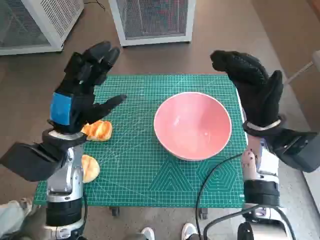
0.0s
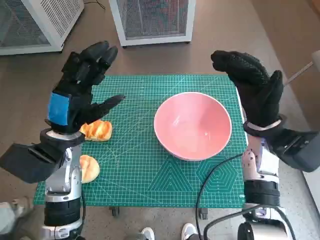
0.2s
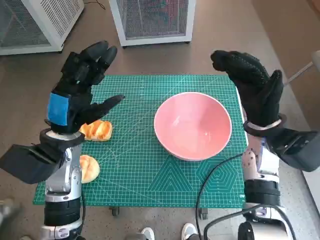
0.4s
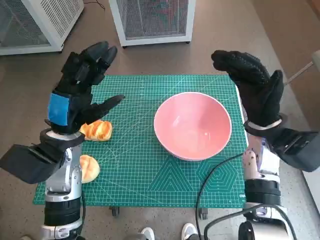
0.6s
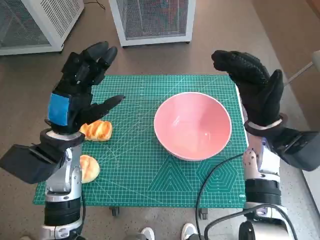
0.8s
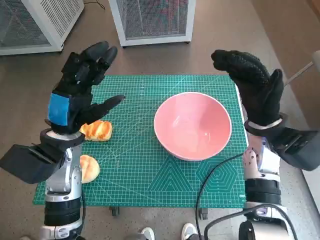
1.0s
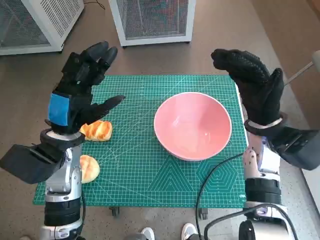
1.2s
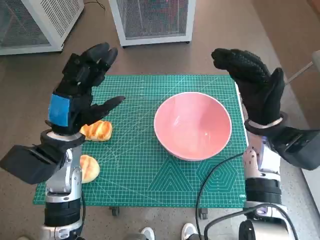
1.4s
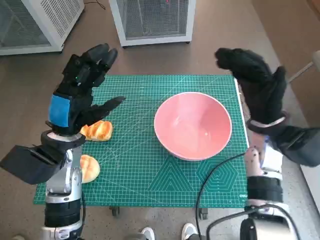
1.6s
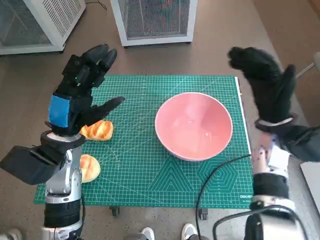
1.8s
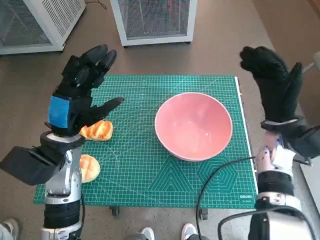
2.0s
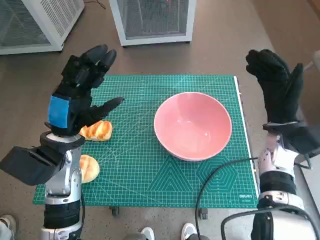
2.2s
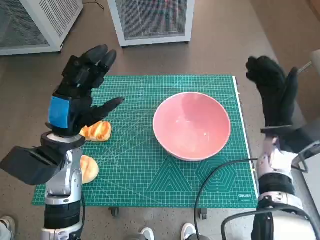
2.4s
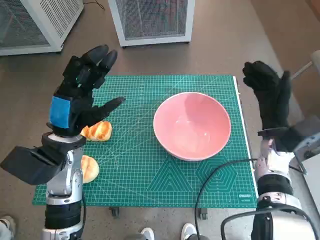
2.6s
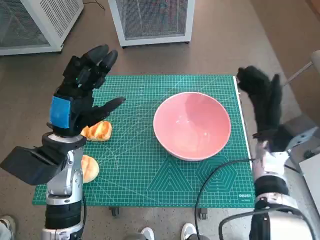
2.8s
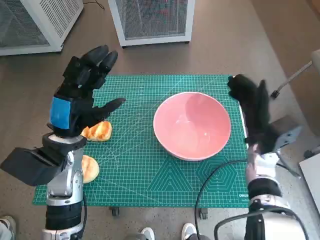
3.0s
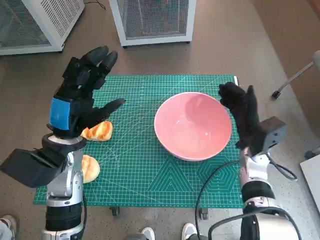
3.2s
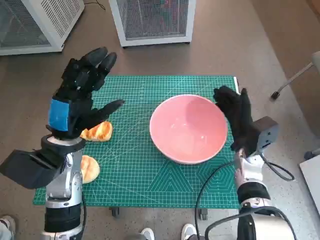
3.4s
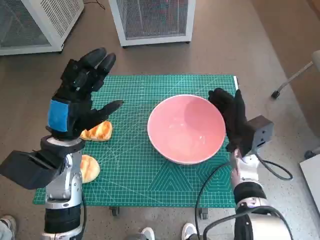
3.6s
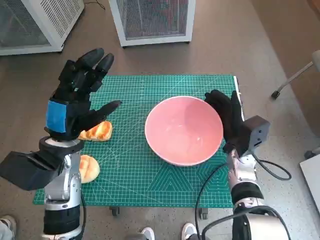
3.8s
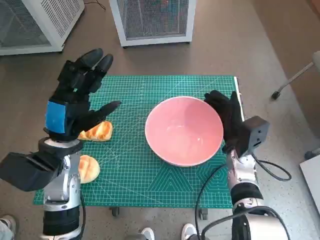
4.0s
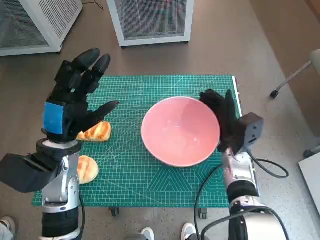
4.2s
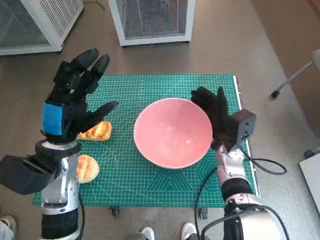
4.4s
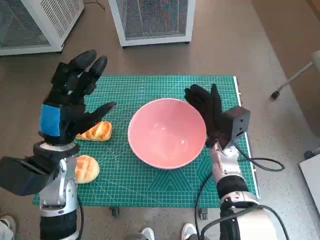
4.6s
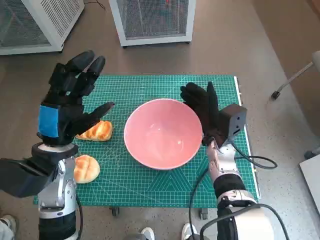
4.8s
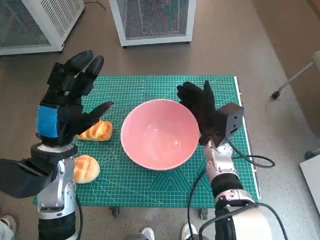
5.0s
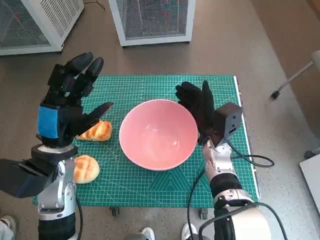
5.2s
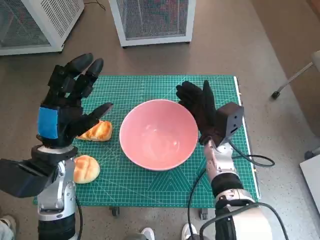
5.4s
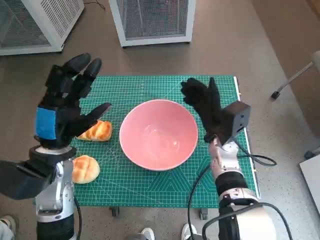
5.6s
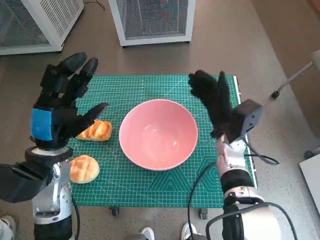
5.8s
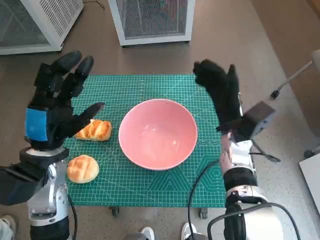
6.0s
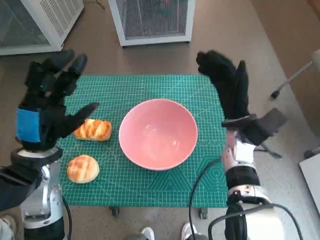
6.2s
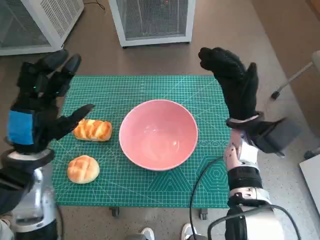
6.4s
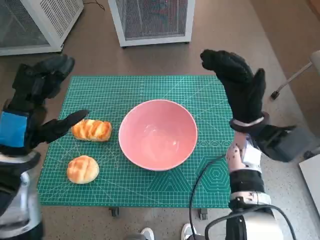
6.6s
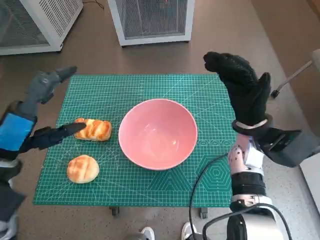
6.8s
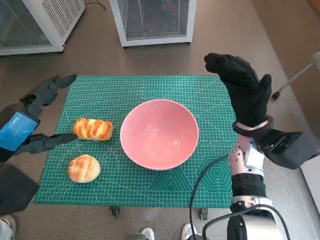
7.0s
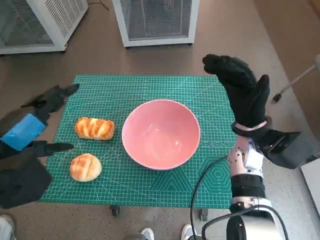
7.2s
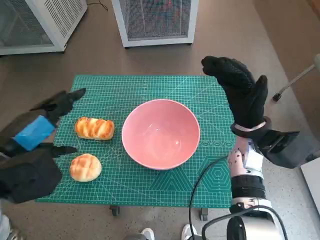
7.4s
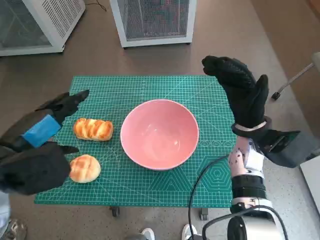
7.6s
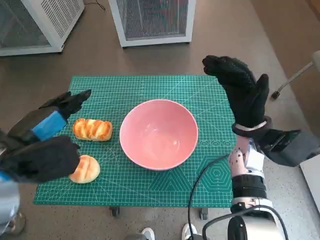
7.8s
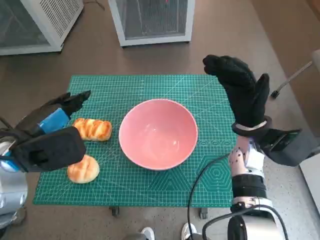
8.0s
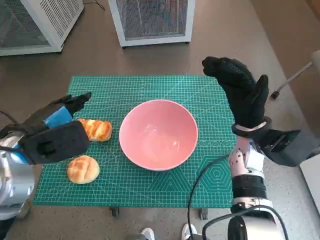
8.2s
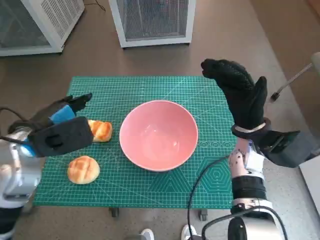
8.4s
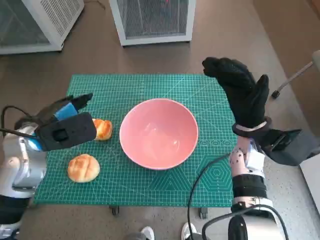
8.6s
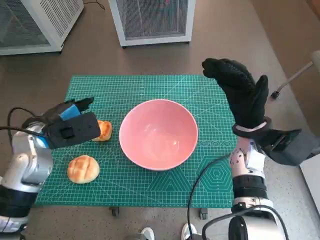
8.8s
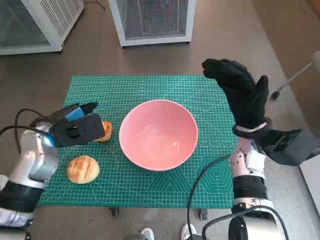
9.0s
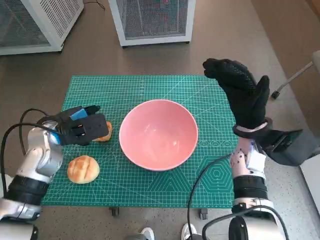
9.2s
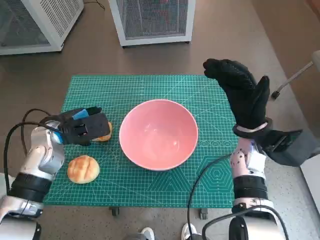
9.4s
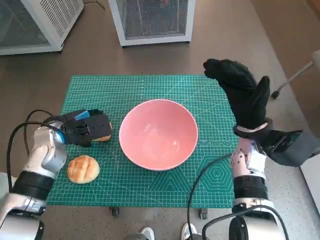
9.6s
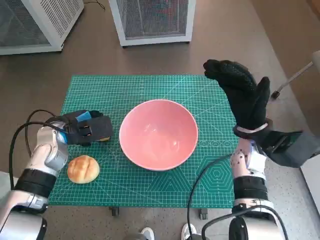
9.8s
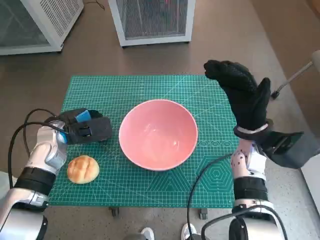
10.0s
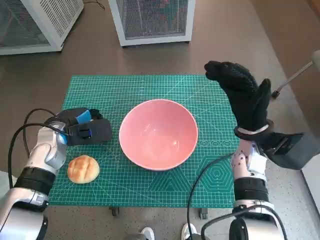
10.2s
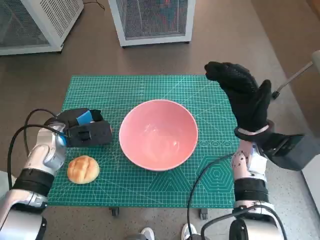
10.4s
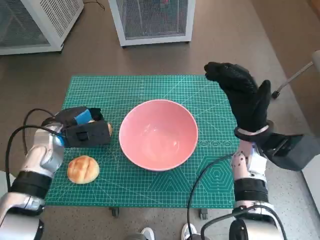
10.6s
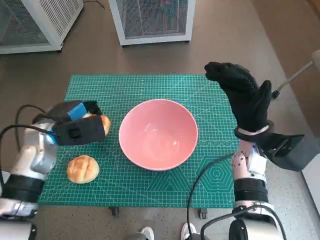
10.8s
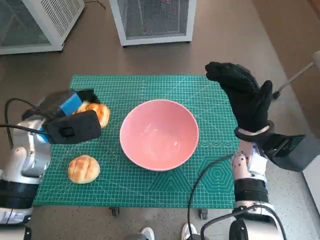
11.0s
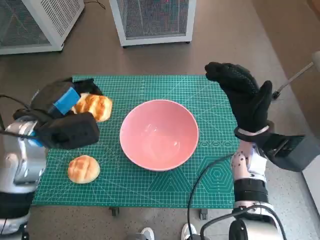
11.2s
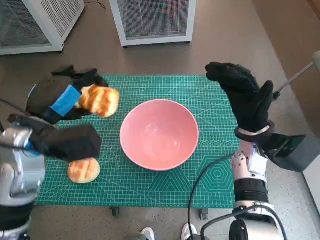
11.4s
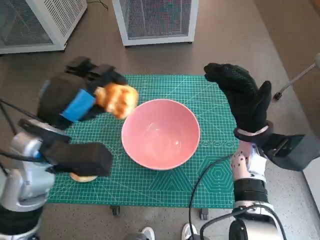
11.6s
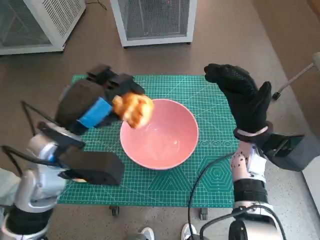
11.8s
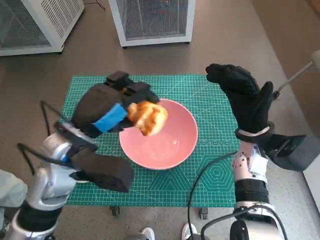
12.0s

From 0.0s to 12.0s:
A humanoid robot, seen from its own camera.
Task of the whole recording: Push the bowl into the center of the table and put the bread into the bowl.
Step, from 0.0s to 5.6s: Move the pink bowl to the center of table with right hand.
Step, from 5.8s to 9.8s: Grasp the long bread with left hand.
From 1.6s to 3.0s: The right hand moves downward, about 5 cm.
From 3.0s to 4.4s: The right hand shifts about 5 cm to the left.
From 6.0s to 7.6s: The left hand heads upward, covering some 5 cm.
From 7.6s to 9.0s: The left hand shifts about 10 cm forward and downward.
From 9.0s to 10.4s: The left hand ends up approximately 5 cm from where it was.
From 10.4s to 12.0s: The left hand goes approximately 15 cm upward, to the right and backward.

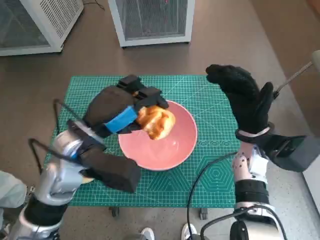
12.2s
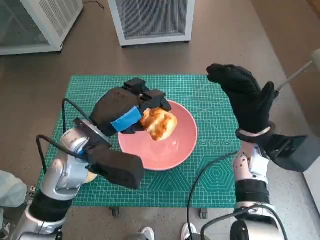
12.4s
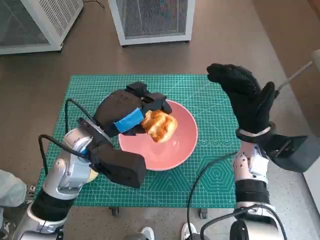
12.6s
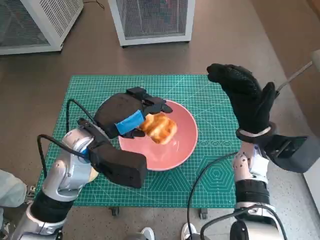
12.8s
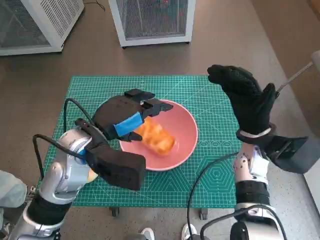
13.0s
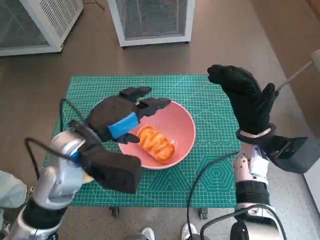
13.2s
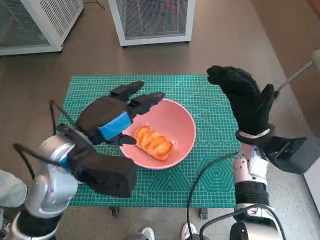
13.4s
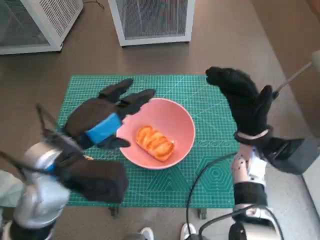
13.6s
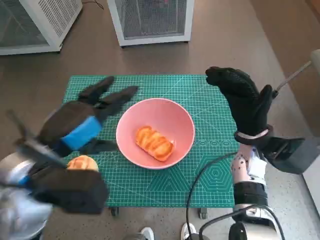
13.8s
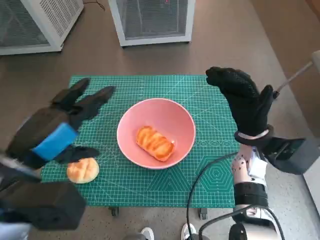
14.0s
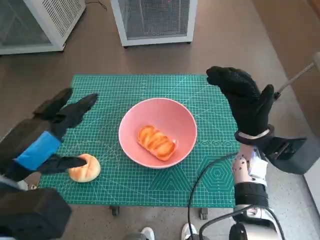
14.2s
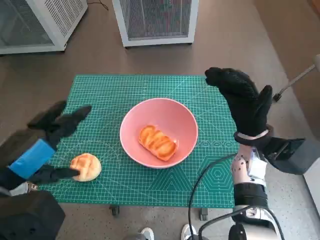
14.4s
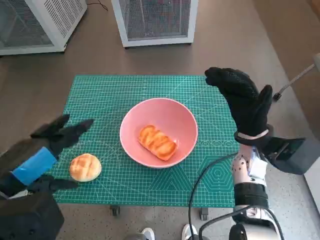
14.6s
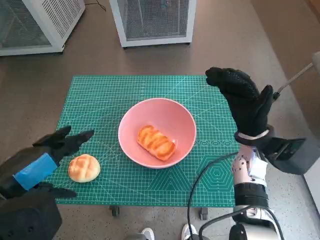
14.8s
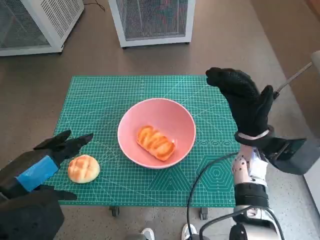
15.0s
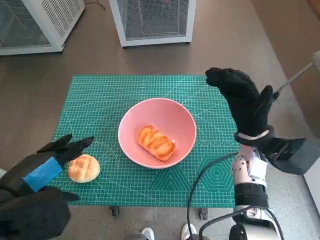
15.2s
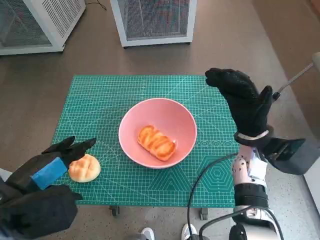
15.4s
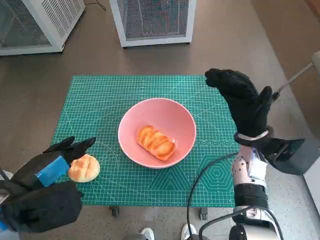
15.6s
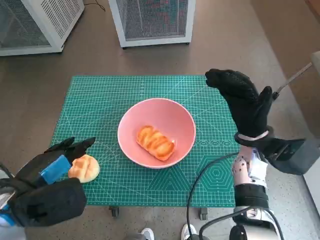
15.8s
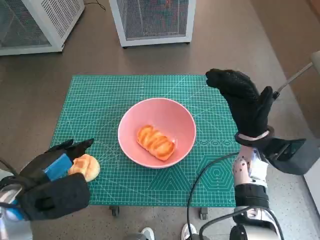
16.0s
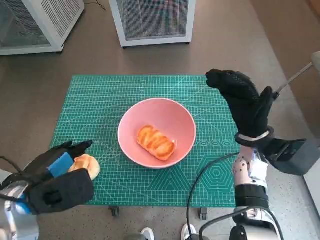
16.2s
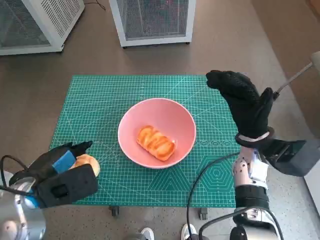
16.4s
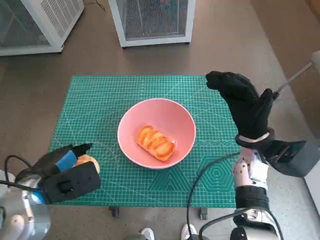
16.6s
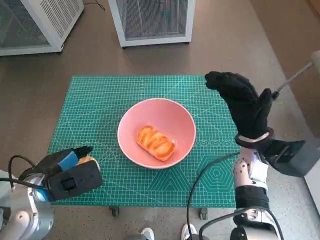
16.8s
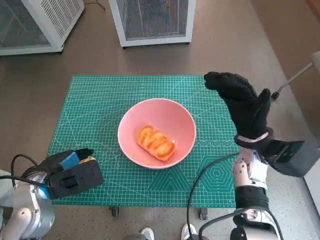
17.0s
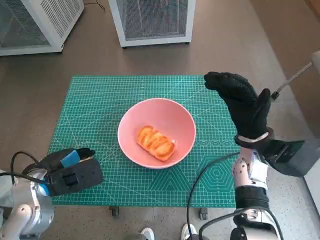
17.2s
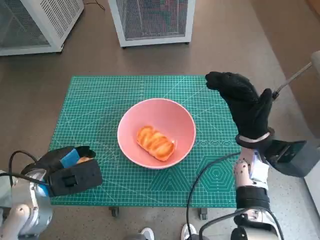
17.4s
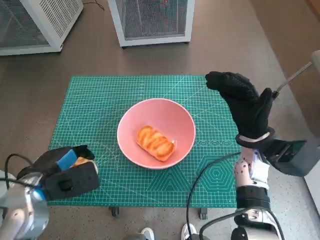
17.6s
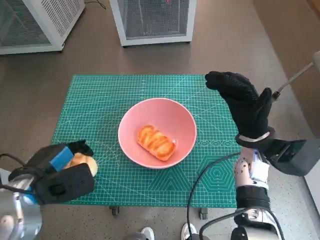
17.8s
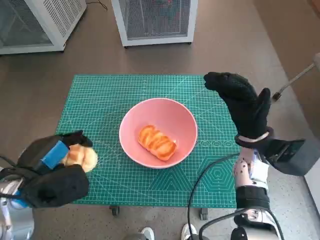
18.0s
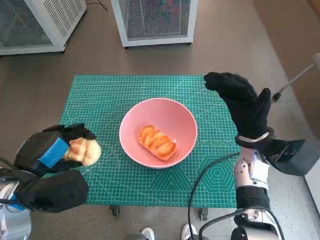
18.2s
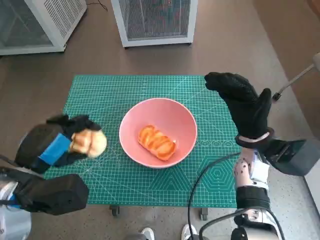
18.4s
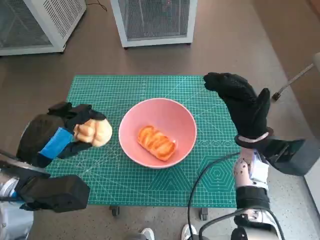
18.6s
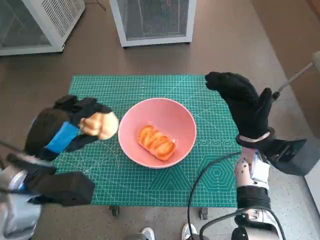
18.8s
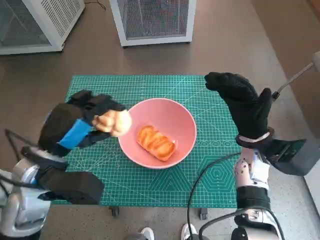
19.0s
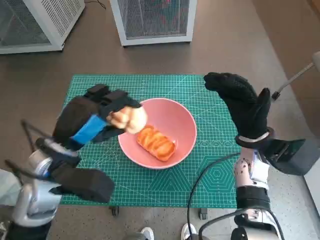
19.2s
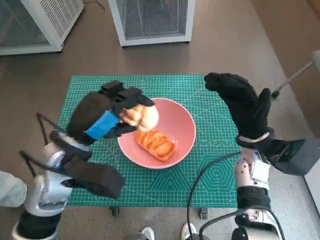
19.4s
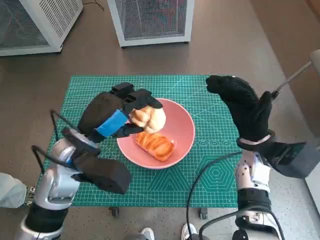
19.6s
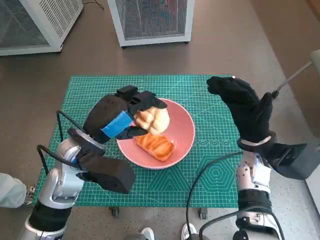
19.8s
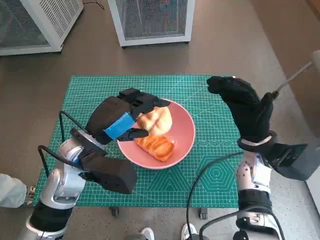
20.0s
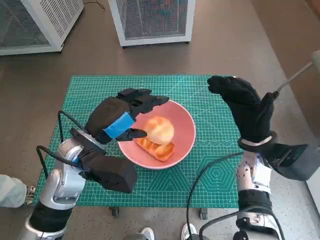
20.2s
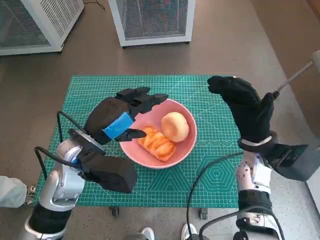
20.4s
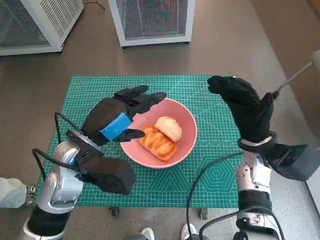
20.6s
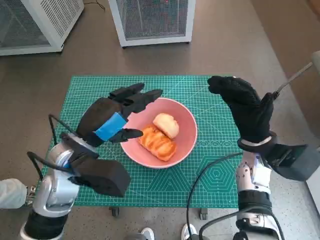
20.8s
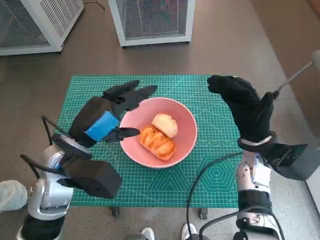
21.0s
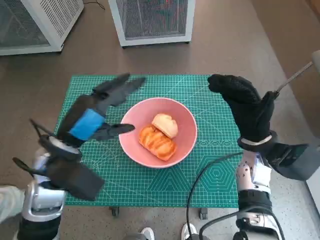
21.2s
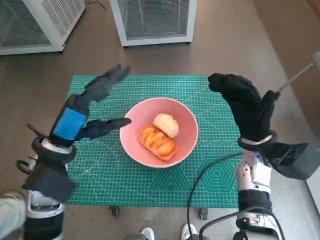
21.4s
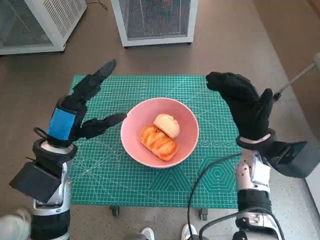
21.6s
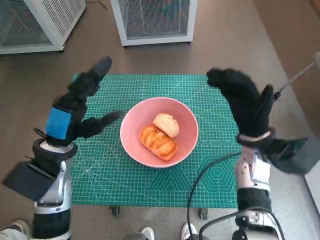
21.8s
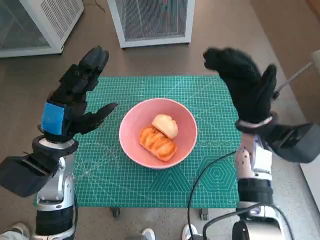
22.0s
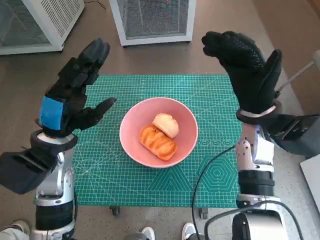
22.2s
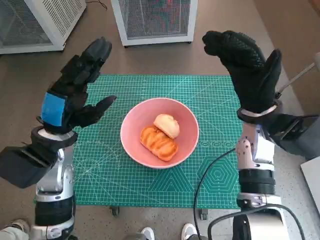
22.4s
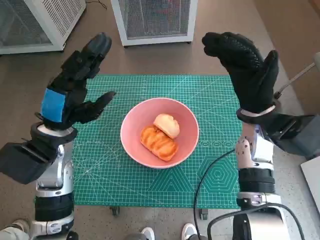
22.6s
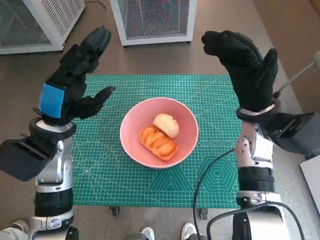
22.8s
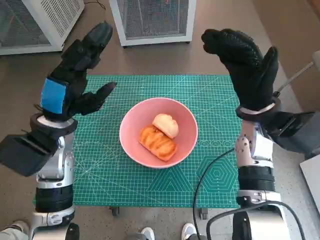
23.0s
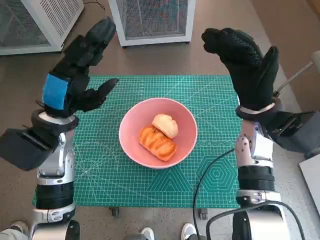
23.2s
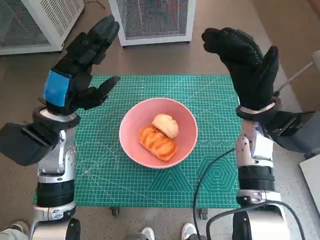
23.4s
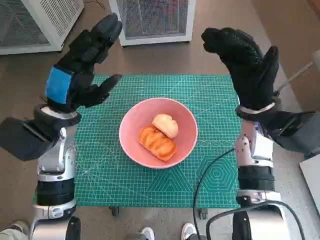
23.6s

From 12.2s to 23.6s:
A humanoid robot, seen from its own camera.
Task of the whole recording: Push the bowl into the center of the table and put the bread into the bowl.
Step, from 13.2s to 17.4s: Grasp the round bread with left hand.
Step, from 17.6s to 20.0s: Place the round bread in pink bowl with left hand.
From 13.6s to 15.0s: The left hand heads backward and to the left, covering some 10 cm.
From 15.0s to 16.4s: The left hand is displaced downward by some 10 cm.
From 16.4s to 17.8s: The hands move only a little.
From 17.8s to 19.4s: The left hand heads to the right, covering about 5 cm.
From 19.4s to 20.8s: The hands stay close to where they were, moving slightly.
From 20.8s to 22.2s: The right hand moves upward, some 5 cm.
